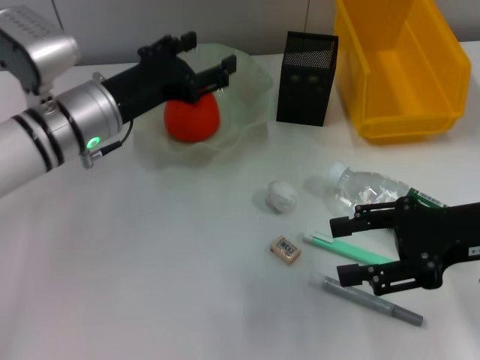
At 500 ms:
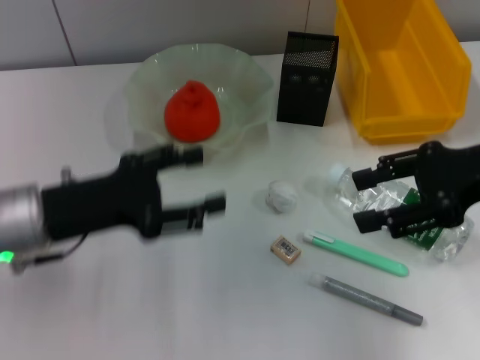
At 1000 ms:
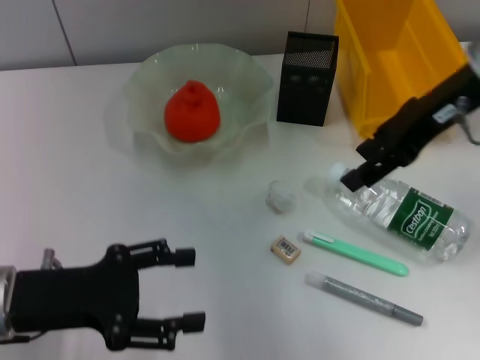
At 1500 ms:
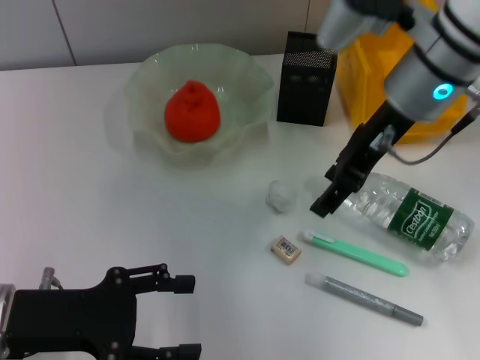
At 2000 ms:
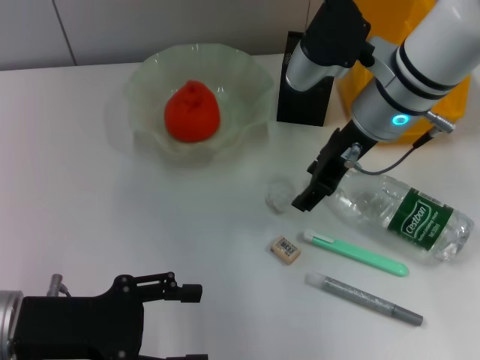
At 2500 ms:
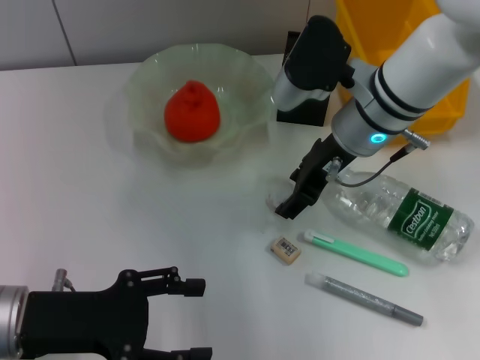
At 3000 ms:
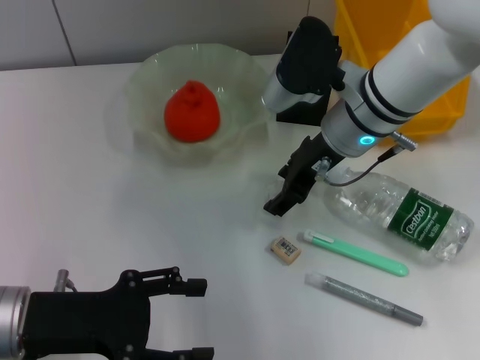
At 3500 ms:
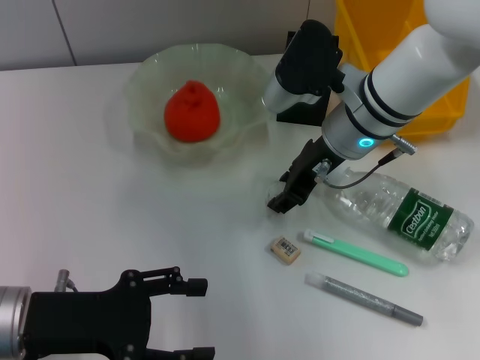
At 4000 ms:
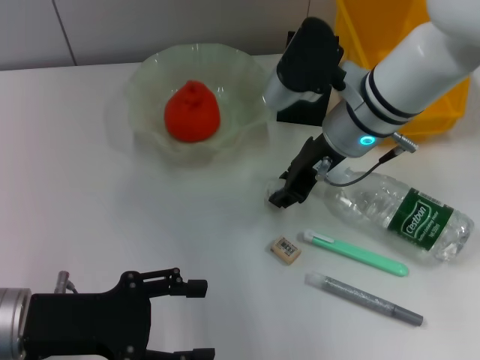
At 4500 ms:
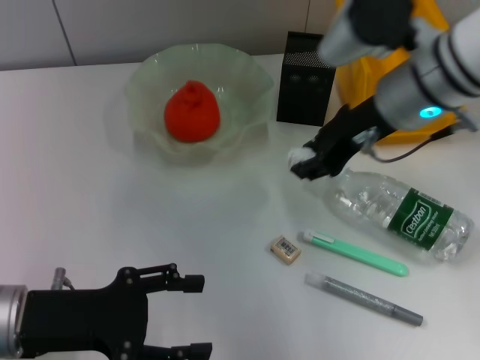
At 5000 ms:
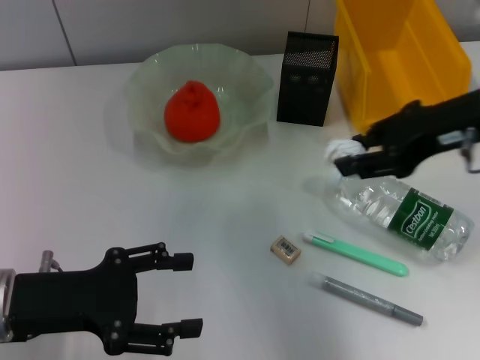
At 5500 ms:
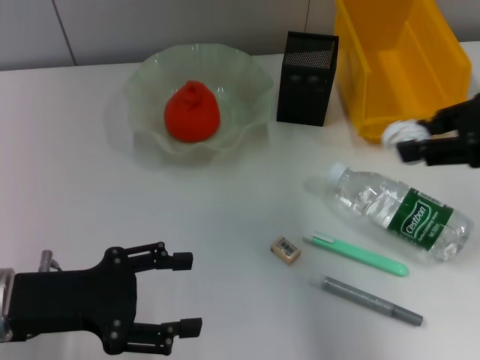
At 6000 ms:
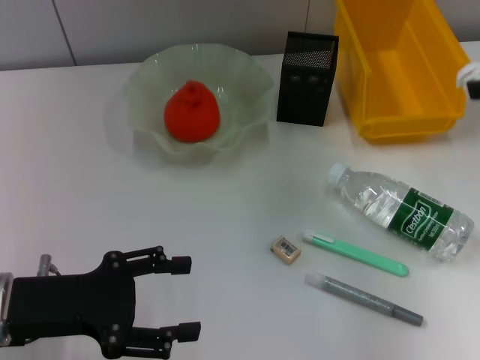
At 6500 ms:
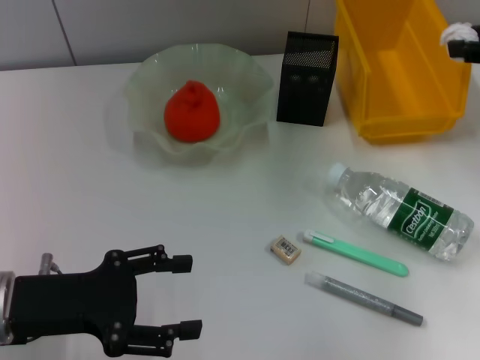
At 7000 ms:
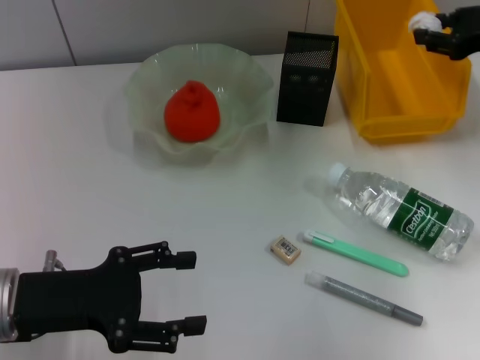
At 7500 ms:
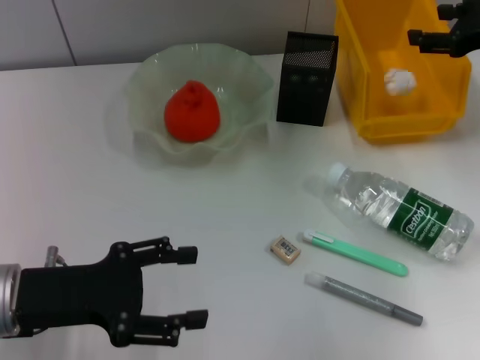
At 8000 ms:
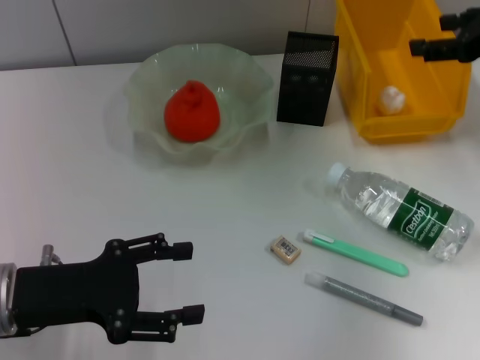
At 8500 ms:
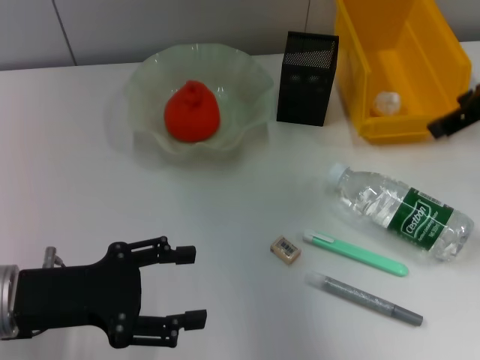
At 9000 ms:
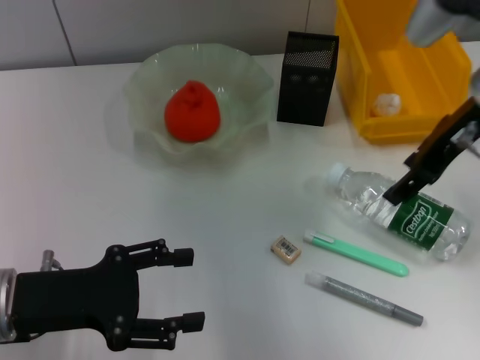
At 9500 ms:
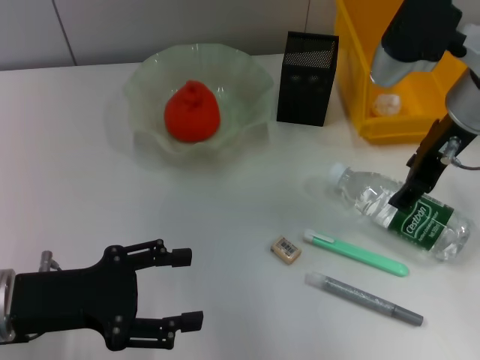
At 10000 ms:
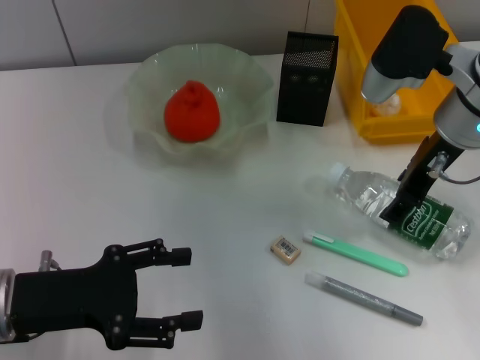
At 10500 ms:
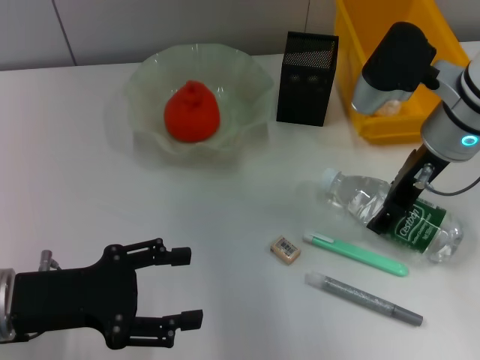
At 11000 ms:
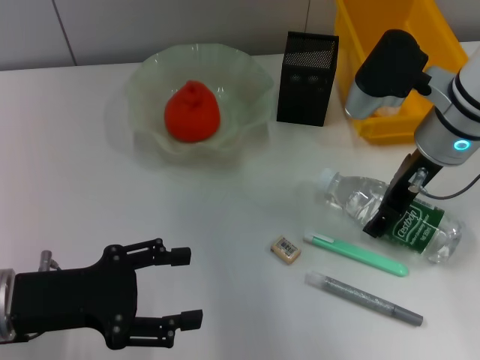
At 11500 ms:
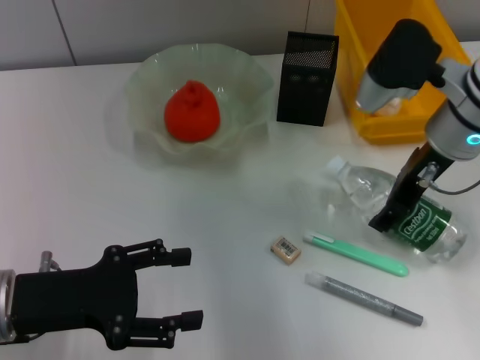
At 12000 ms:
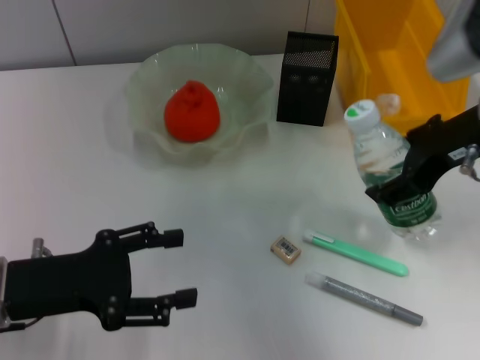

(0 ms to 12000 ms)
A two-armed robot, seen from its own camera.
Step, 0 ms - 3500 ms: Grab the paper ball with the right hand.
Step, 4000 ms - 7500 ms: Place the paper ball into the trash can with the right hand.
Step, 8000 ms - 11000 ms: Grab the water bottle with the right hand.
0 ms - 2000 ms: The left gripper goes approximately 15 cm backward and to the left, while the right gripper goes approximately 20 cm to the left and forward.
2000 ms - 4000 ms: The right gripper closes up.
4000 ms - 6000 ms: The right gripper is displaced to the right and upward by roughly 25 cm.
6000 ms - 8000 ms: The right gripper goes some 5 cm forward, and opens.
8000 ms - 10000 ms: The right gripper travels to the left by approximately 15 cm.
10000 ms - 12000 ms: The right gripper goes approximately 5 cm backward.

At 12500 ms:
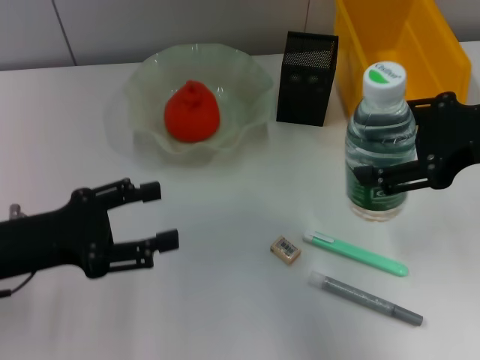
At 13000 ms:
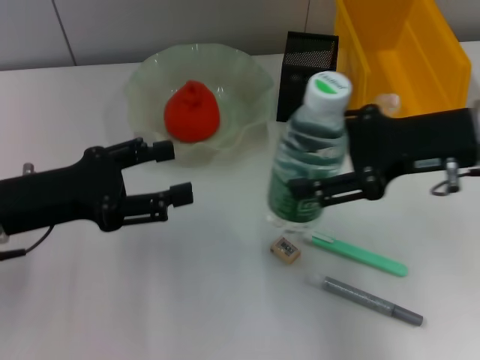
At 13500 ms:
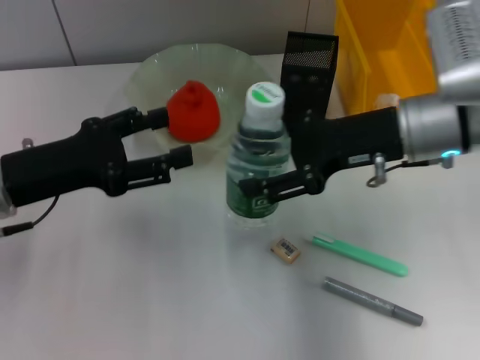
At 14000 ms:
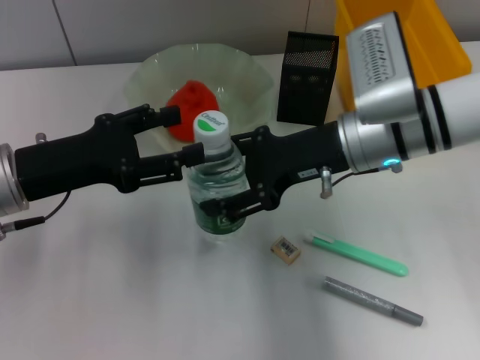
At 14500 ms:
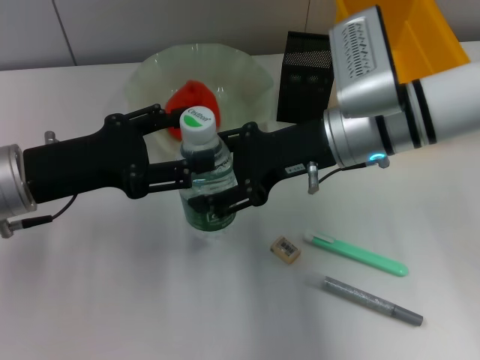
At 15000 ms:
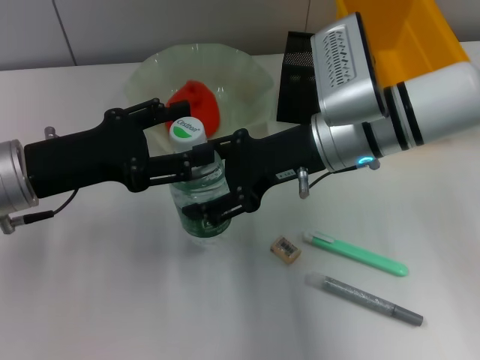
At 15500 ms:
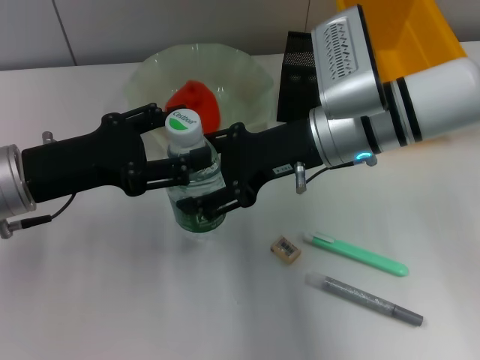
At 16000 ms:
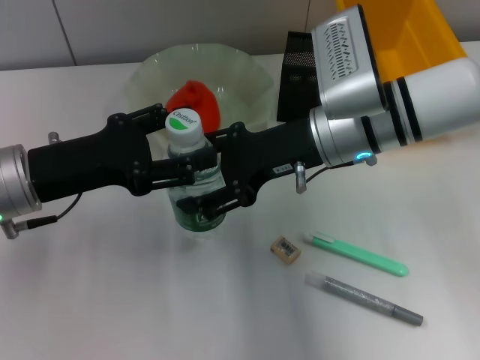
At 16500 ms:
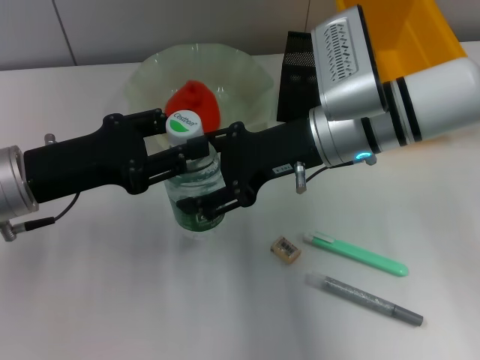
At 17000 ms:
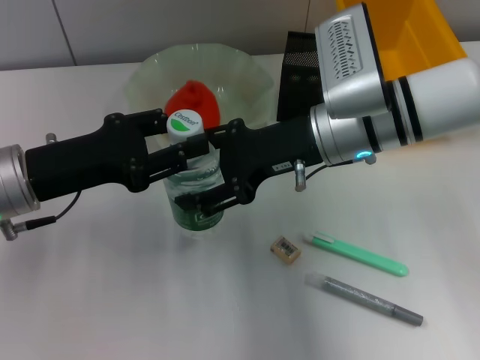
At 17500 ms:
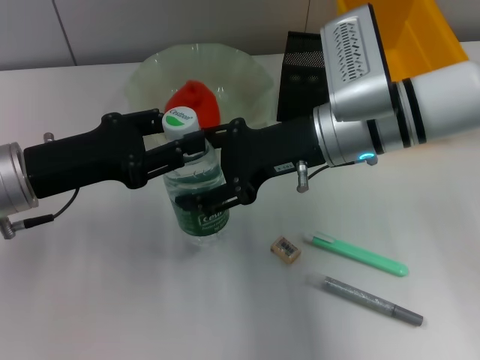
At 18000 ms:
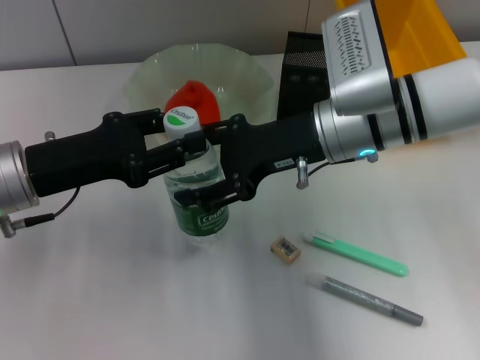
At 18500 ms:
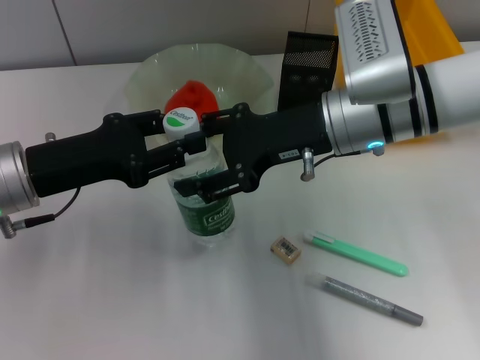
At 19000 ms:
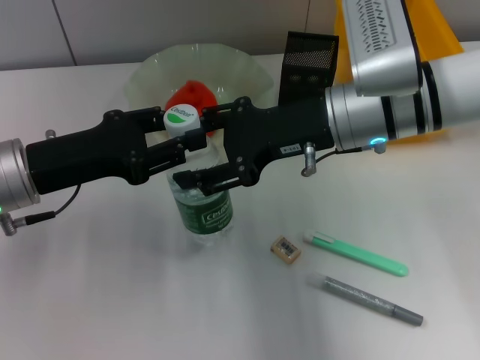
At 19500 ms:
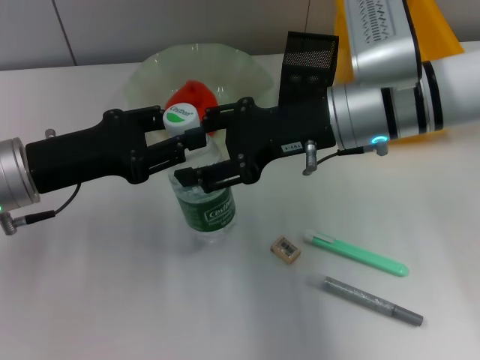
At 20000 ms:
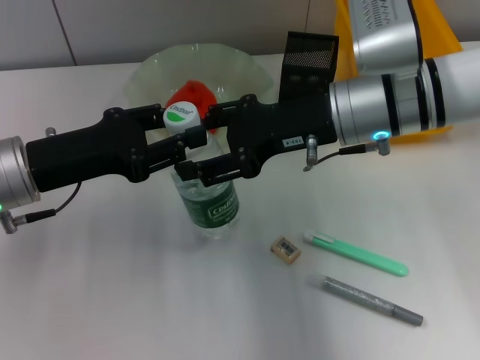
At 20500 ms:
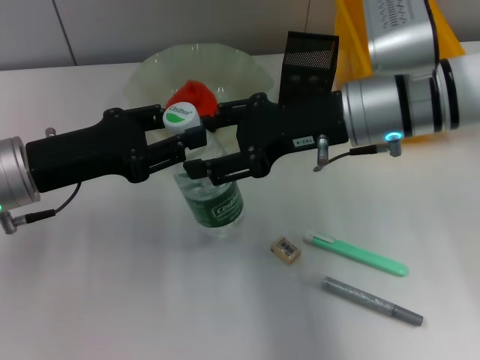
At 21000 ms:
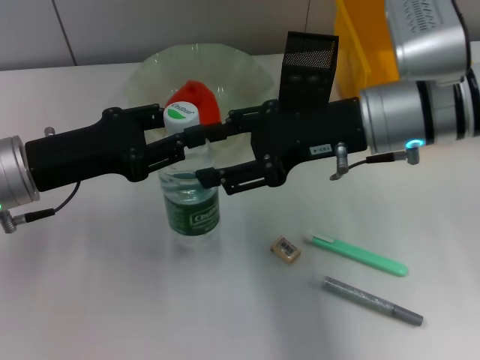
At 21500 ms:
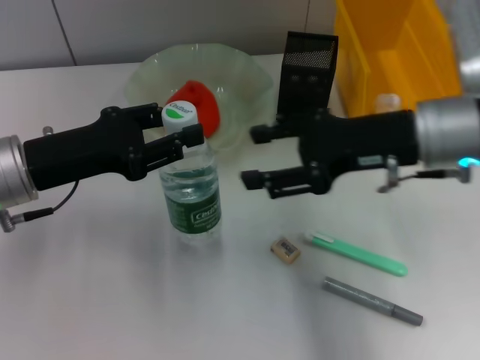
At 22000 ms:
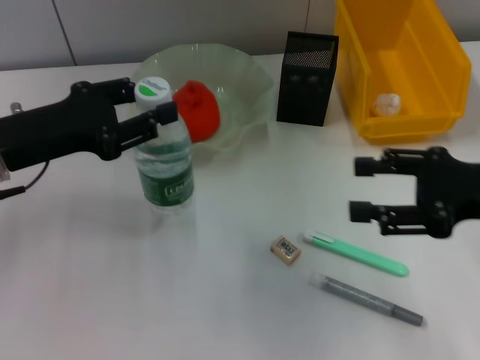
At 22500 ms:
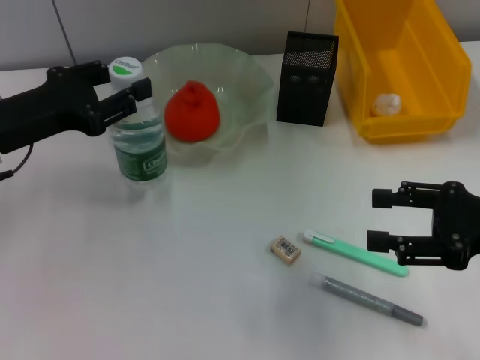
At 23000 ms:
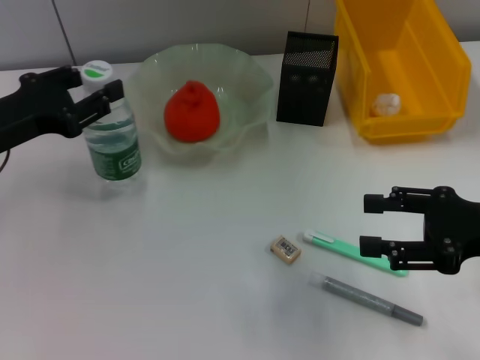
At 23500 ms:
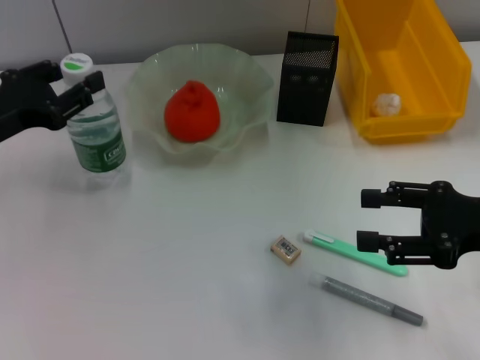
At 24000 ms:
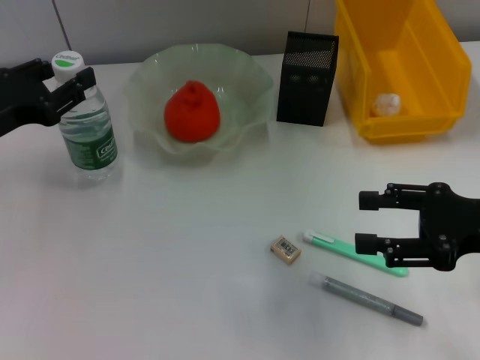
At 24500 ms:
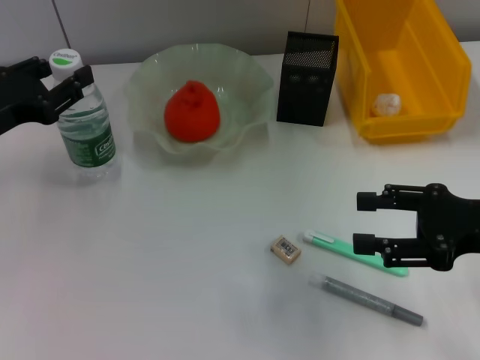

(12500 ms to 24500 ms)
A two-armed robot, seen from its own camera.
Step, 12500 ms - 21000 ms: Pass the water bottle from the right hand to the left hand.
12500 ms - 14500 ms: The left gripper ends up some 5 cm from where it was, while the right gripper moves to the left, downward and forward, about 15 cm.
14500 ms - 16500 ms: Both grippers stay put.
16500 ms - 20500 ms: The grippers make only small movements.
20500 ms - 22500 ms: The right gripper shifts some 20 cm to the right and backward.
22500 ms - 24500 ms: The grippers move only a little.

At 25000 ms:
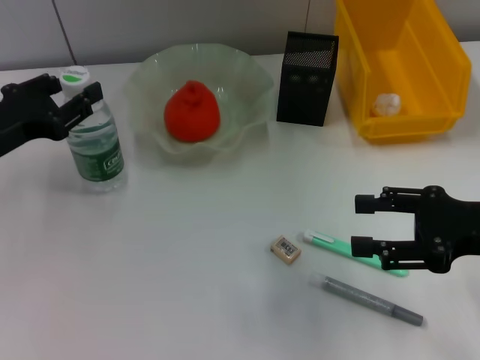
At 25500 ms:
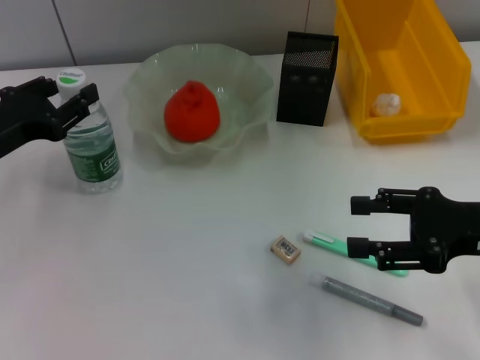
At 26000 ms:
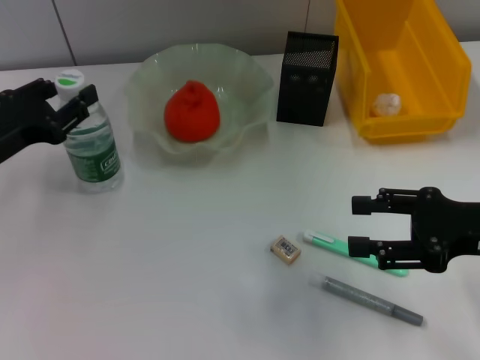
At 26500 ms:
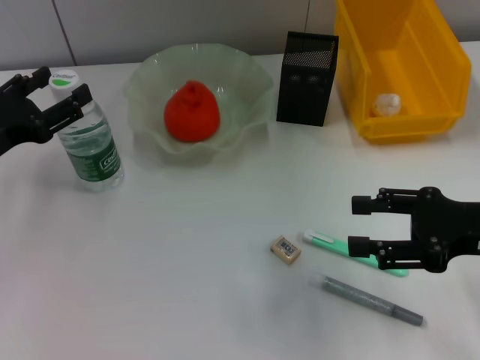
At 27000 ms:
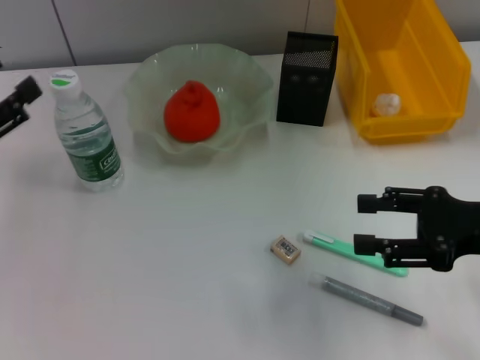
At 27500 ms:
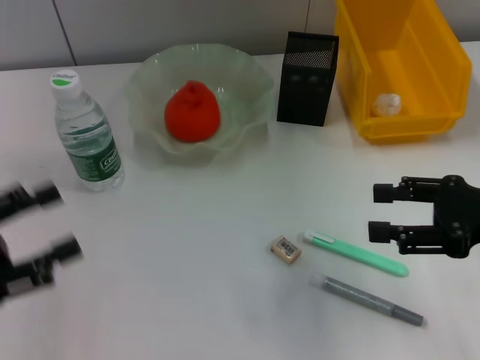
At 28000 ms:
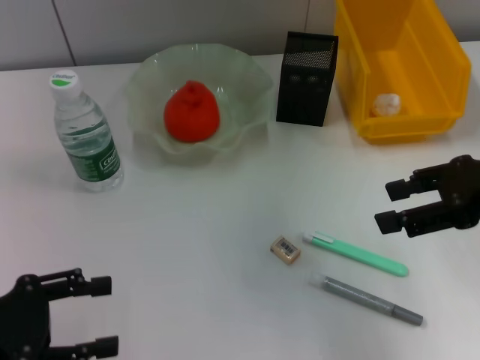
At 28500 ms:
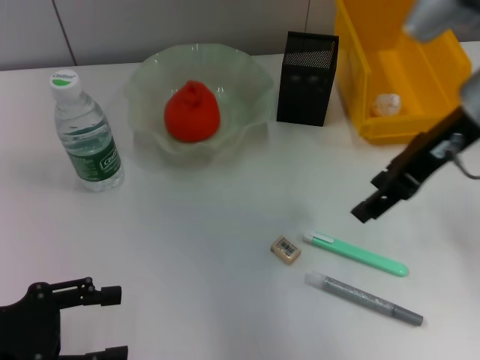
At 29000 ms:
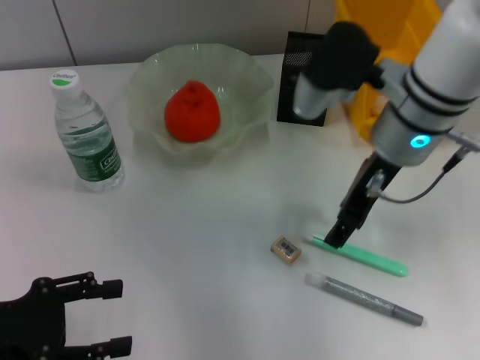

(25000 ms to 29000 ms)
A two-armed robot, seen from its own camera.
25000 ms - 27000 ms: The left gripper shifts roughly 5 cm backward, and opens.
27000 ms - 29000 ms: The left gripper goes roughly 5 cm backward. The right gripper shifts some 20 cm to the left and forward.
